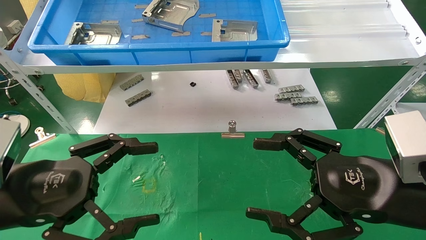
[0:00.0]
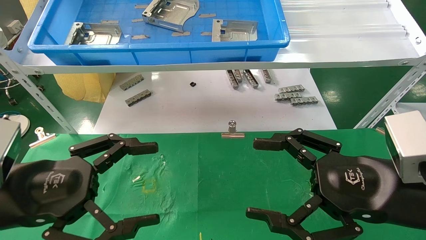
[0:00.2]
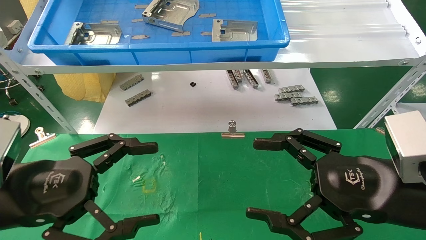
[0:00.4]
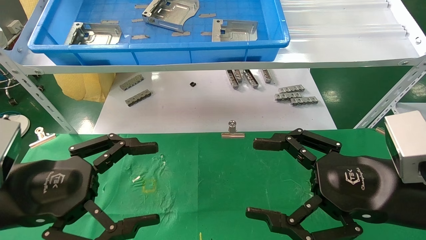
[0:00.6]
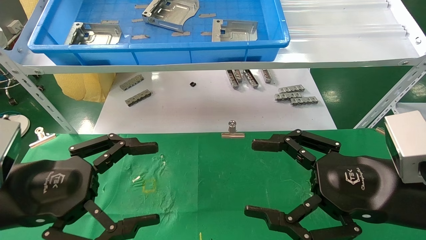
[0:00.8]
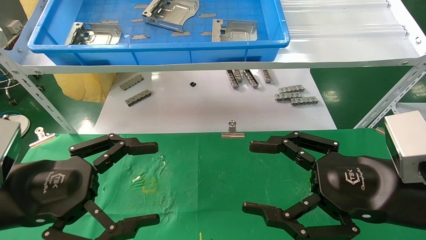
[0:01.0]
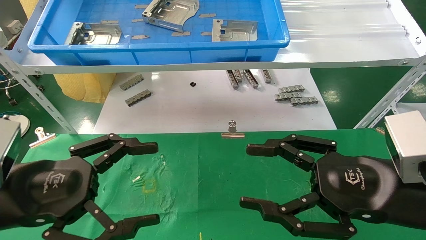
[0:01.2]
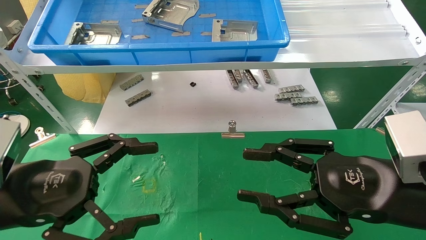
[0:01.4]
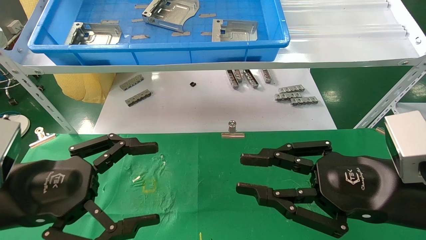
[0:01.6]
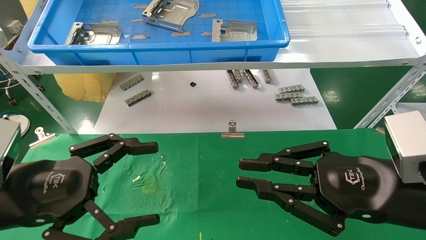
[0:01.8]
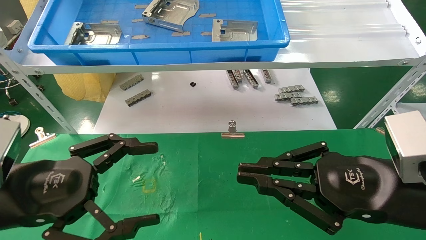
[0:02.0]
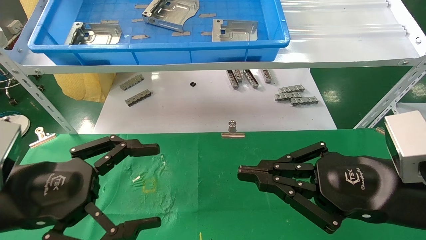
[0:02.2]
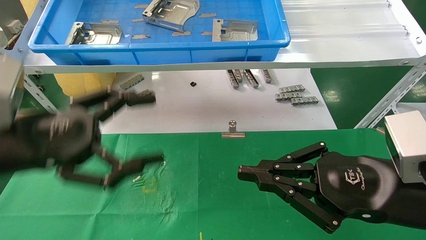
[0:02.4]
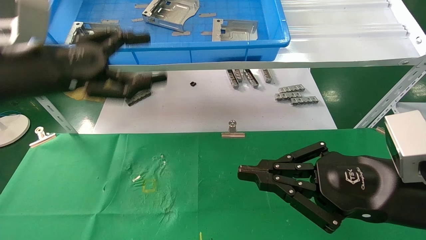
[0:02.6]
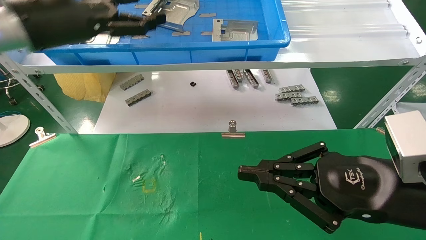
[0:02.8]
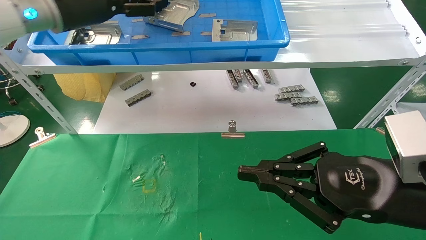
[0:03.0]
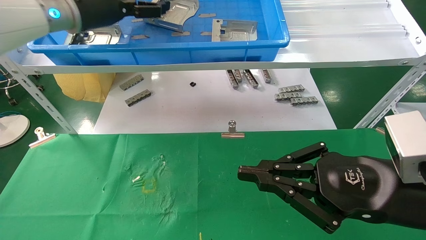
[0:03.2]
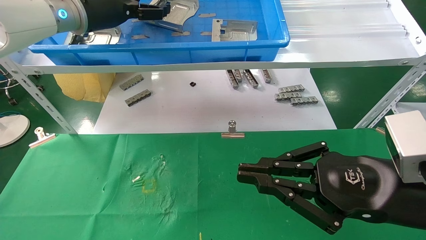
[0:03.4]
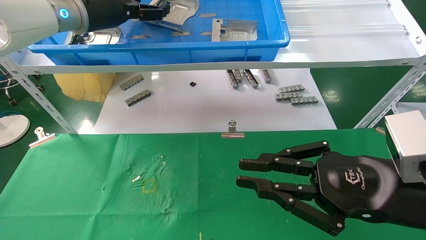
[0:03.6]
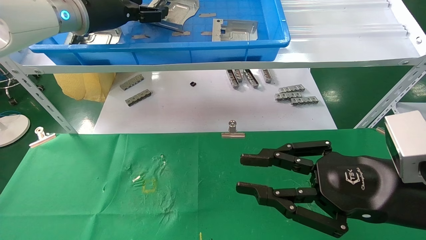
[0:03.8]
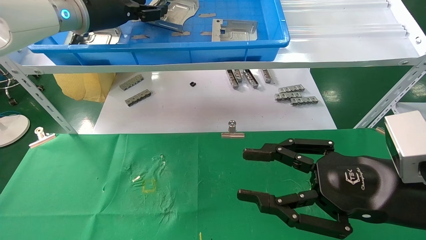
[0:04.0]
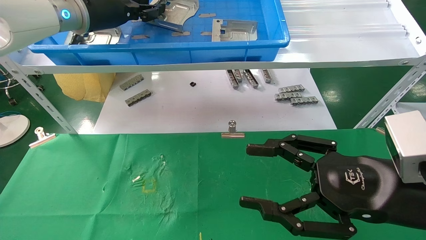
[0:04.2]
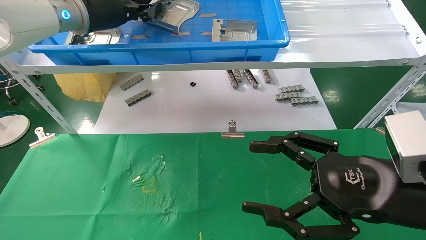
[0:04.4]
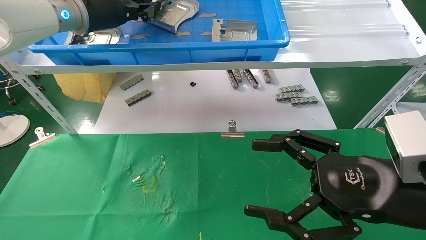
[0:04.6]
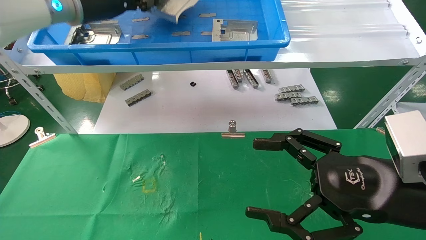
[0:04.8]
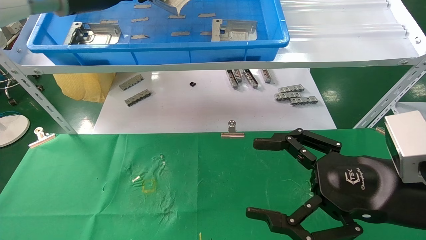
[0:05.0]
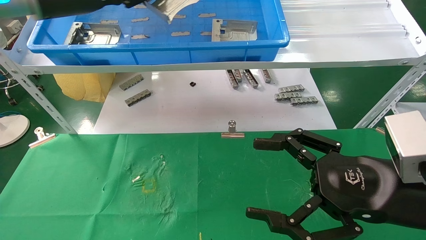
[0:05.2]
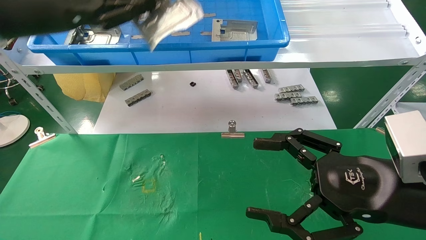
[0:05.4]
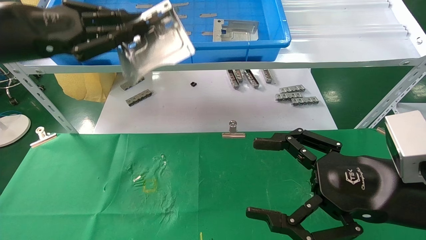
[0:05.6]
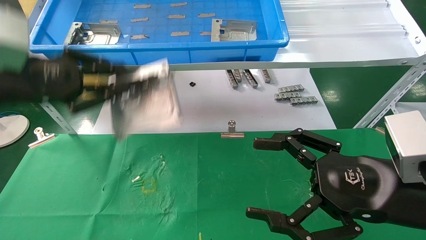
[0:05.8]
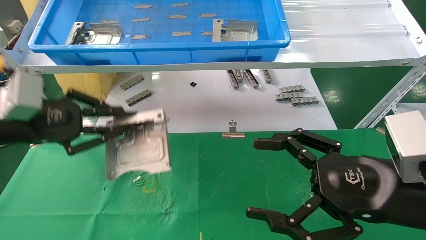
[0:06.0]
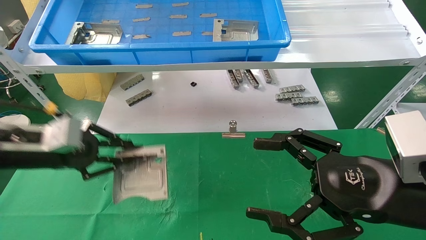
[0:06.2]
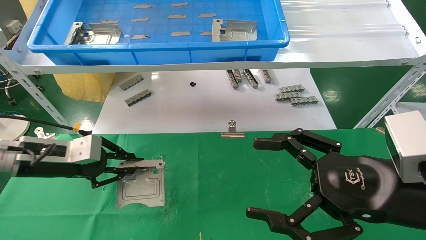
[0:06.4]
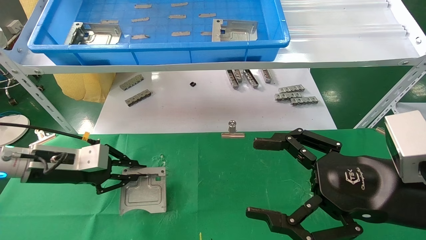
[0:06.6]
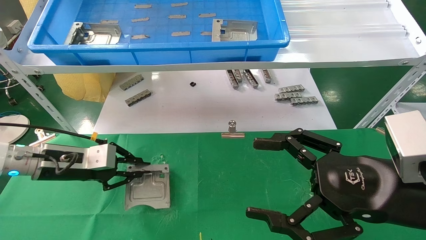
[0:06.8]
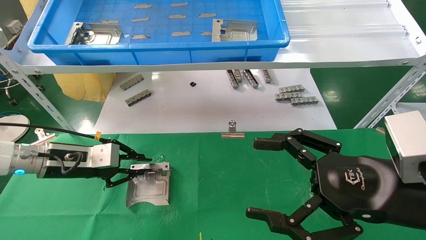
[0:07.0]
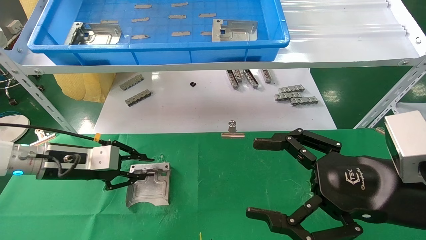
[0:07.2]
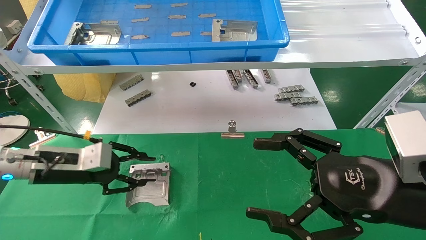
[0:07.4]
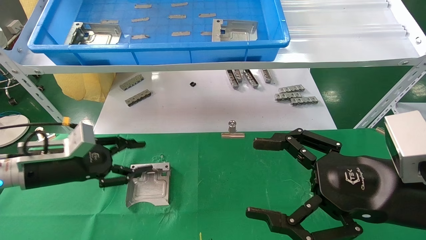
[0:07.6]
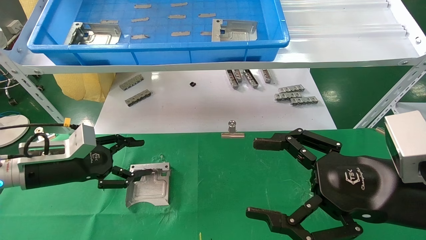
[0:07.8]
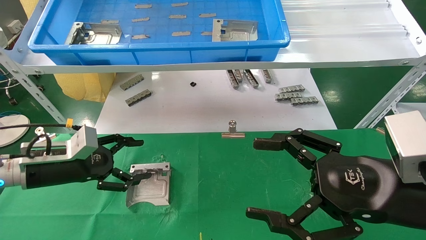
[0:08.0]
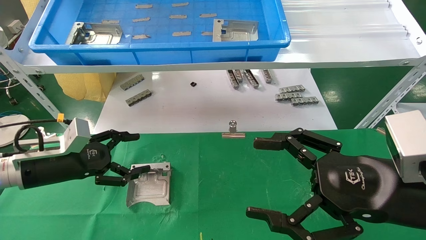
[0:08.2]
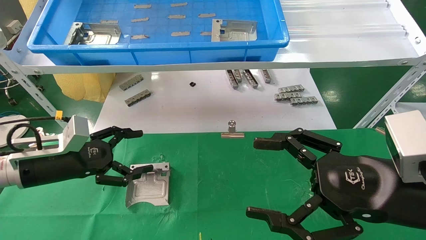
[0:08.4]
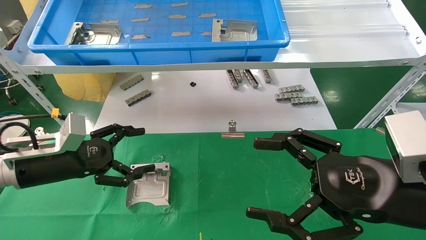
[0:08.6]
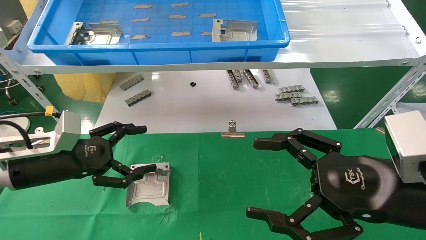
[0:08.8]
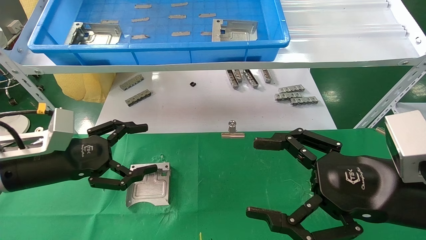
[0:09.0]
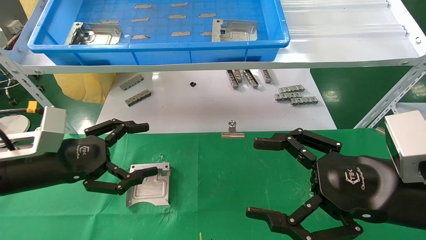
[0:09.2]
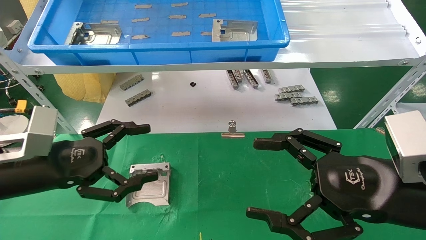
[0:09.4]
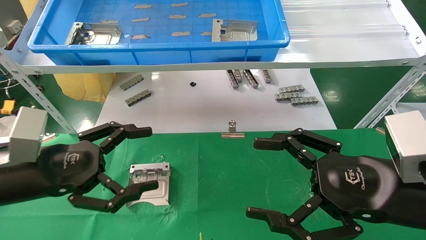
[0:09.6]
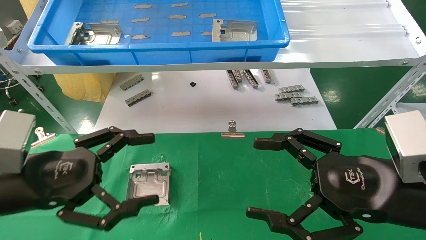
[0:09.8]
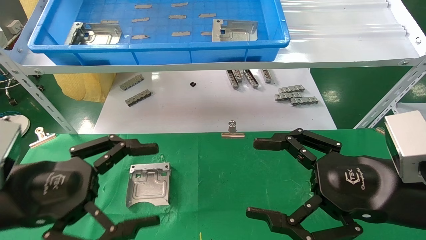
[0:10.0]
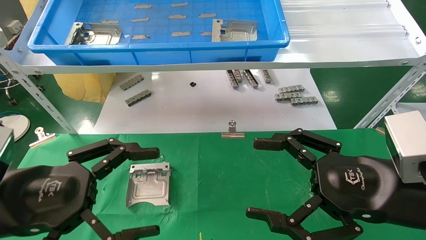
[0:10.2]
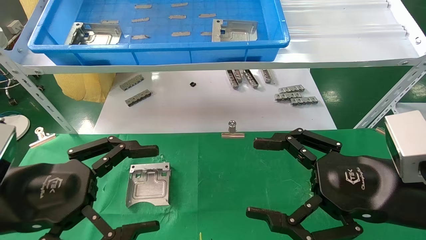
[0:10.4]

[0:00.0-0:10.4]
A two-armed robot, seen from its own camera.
Task of the whole recording: use the mechanical arm to pick up the parts and place them on the table.
Step, 0:02.6 to 0:04.6: Pick up the hard drive bracket from the feeding area.
Step, 0:04.8 to 0:07.0: Place the hard drive bracket into the box.
0:00.0 to 0:01.4: The right gripper closes its fingers.
0:01.4 to 0:03.0: The right gripper closes. Meanwhile the left gripper moves upward and forward, some 30 cm.
0:03.0 to 0:04.4: The left gripper closes up, while the right gripper opens up.
0:04.4 to 0:06.0: The left gripper travels downward, backward and to the left by approximately 25 cm.
0:06.0 to 0:07.4: The left gripper goes approximately 15 cm downward and forward.
0:07.4 to 0:09.0: The left gripper goes roughly 5 cm backward, and opens up.
0:09.0 to 0:10.4: The left gripper is displaced backward by about 10 cm.
